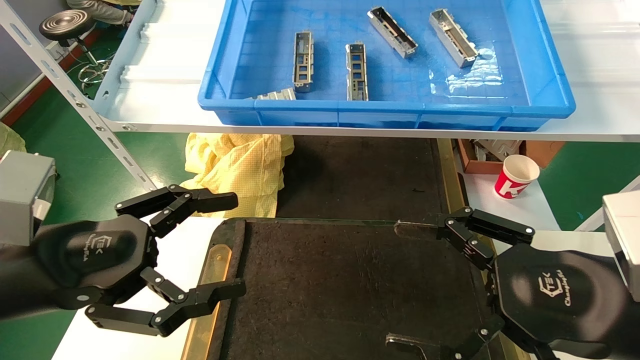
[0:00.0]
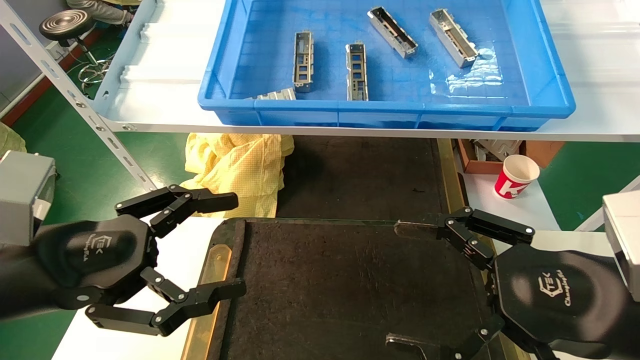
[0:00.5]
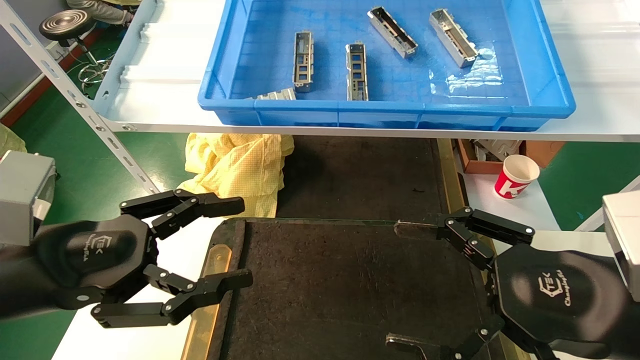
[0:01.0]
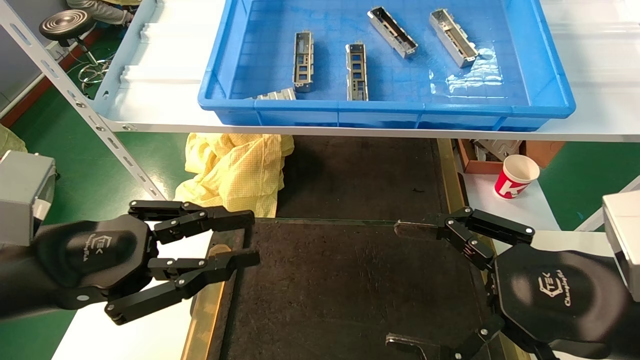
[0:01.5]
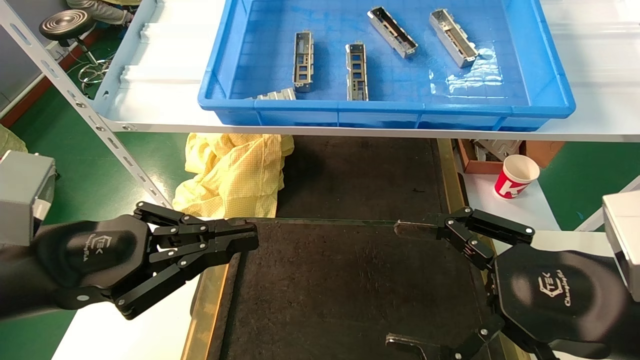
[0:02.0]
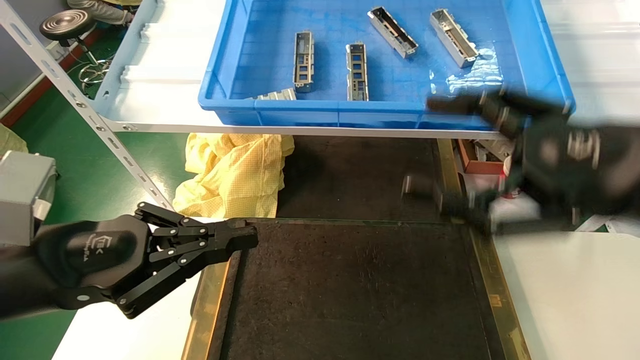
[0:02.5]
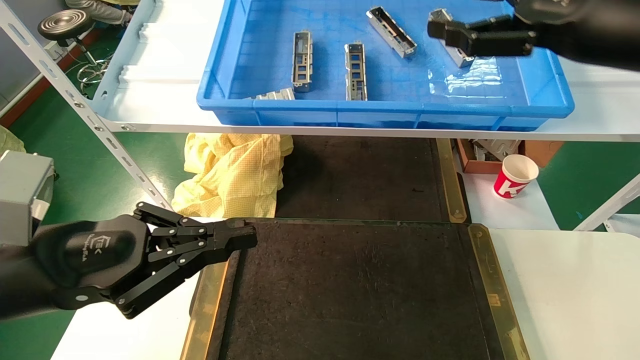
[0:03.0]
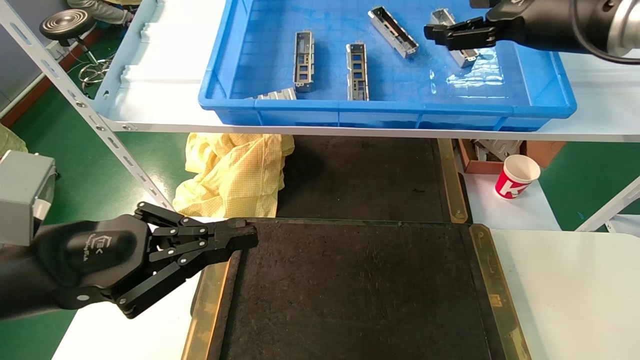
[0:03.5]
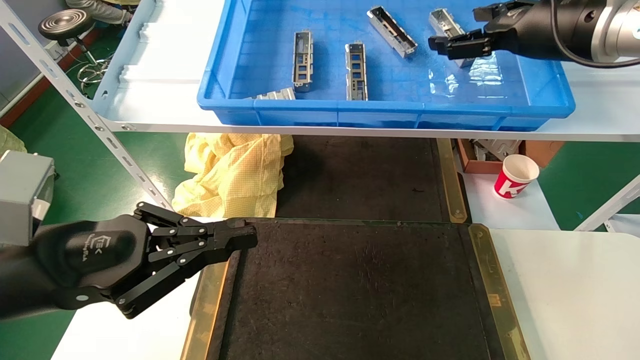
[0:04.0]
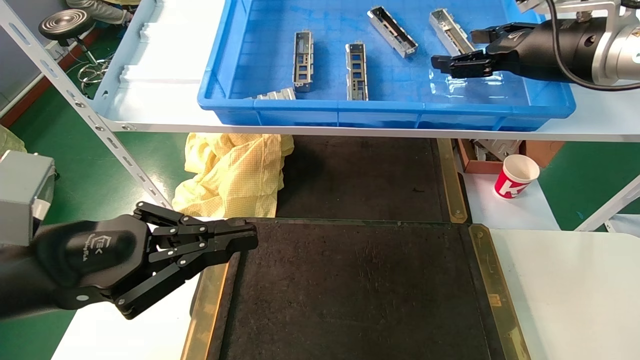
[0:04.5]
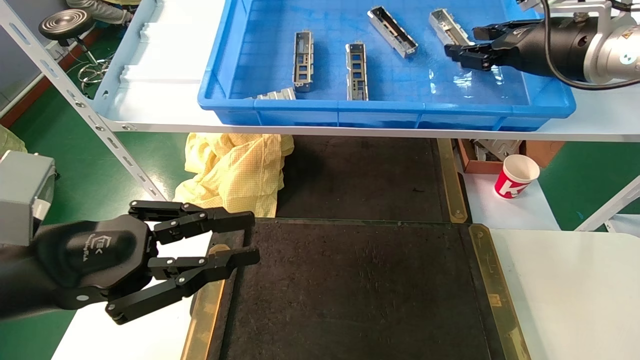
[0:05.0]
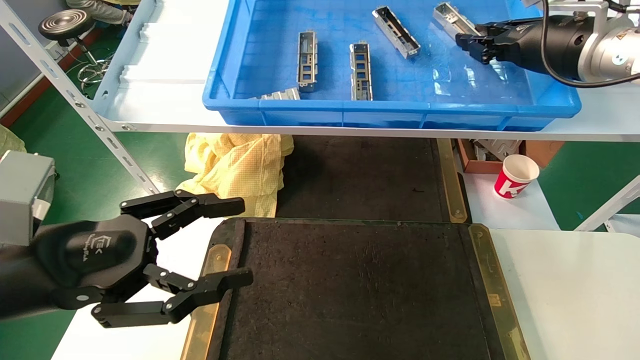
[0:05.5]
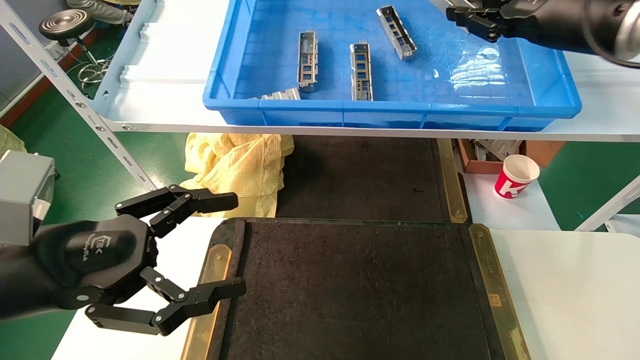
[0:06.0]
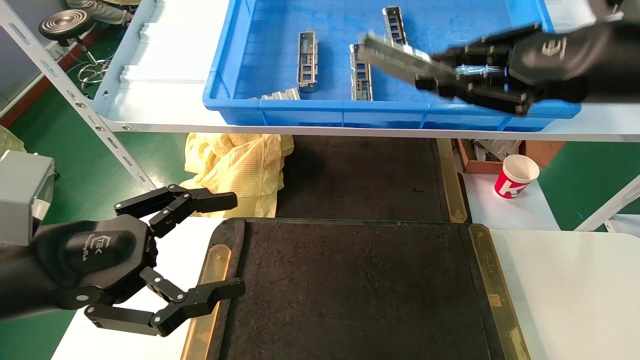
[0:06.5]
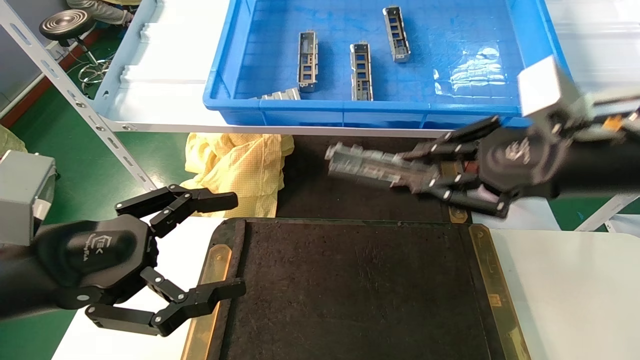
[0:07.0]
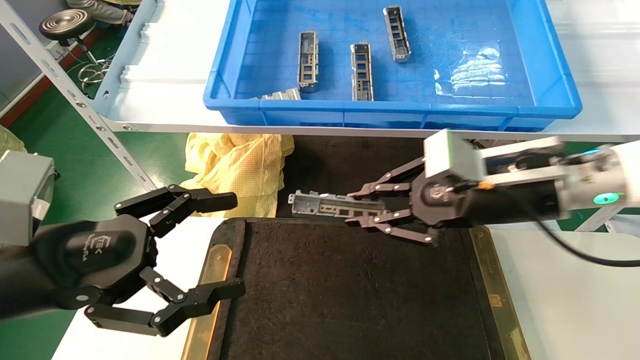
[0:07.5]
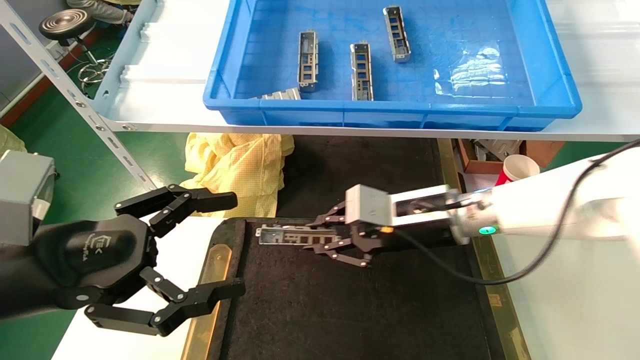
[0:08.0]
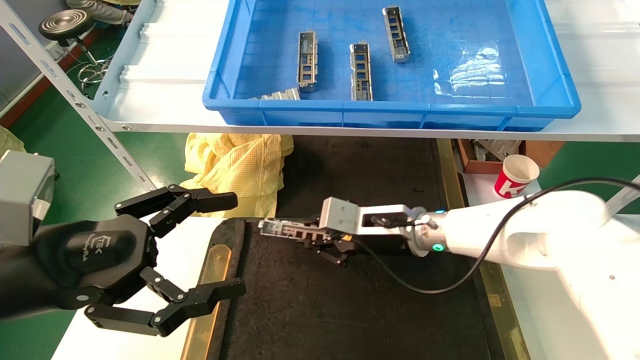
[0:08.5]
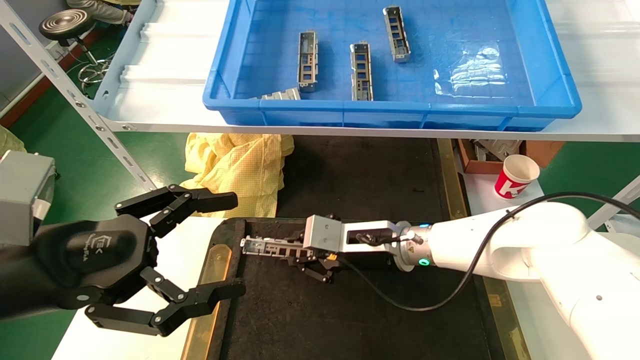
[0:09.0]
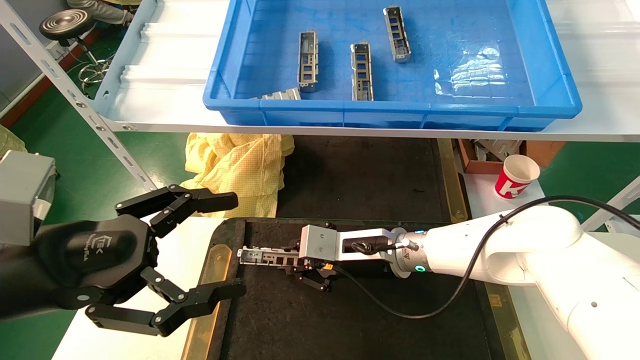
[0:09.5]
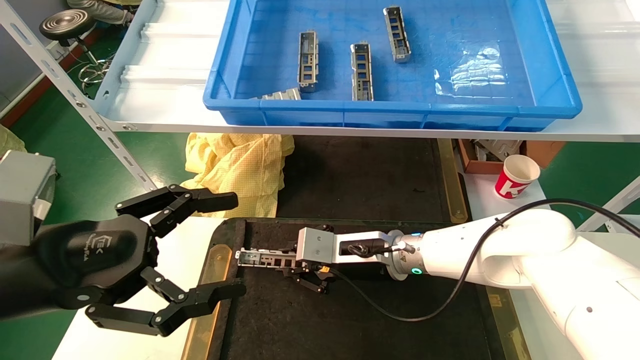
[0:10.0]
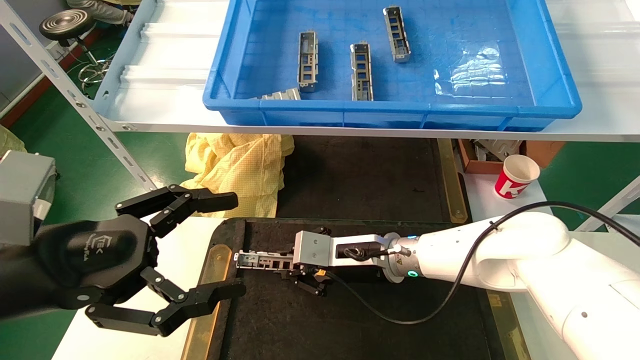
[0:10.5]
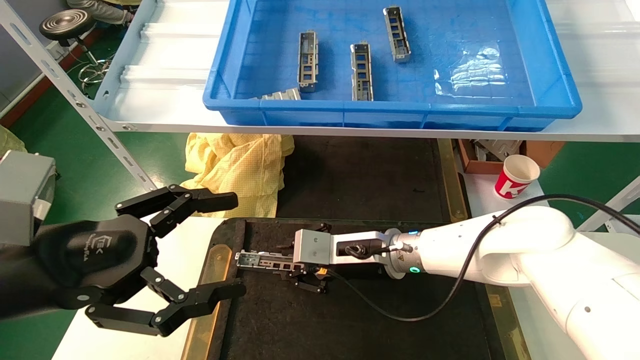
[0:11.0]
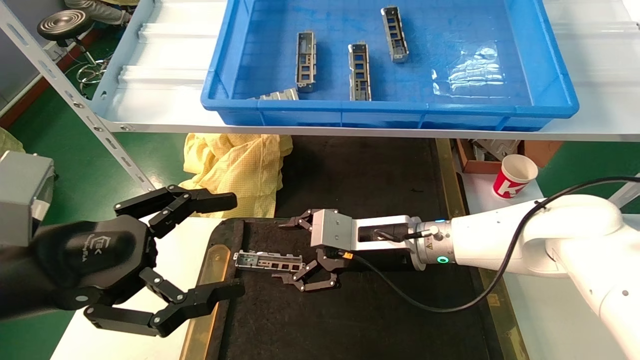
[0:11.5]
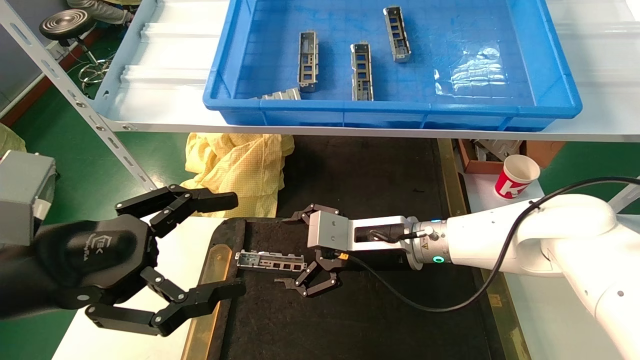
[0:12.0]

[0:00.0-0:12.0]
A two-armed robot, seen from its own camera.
Task of the whole recording: grasp the part and place them on the black container.
Step, 0:03.0 to 0:05.5: Pick up and lift the front USB bracket from the feeding area.
Step, 0:06.0 to 0:11.0: Place the front USB bracket into the box.
0:00.0 to 0:02.0: The left gripper closes up.
0:02.0 to 0:04.0: The right gripper is displaced forward and upward by some 30 cm.
0:04.0 to 0:06.0: The right gripper closes, while the left gripper opens.
0:06.0 to 0:08.0: The right gripper moves downward and to the left, about 30 cm.
0:08.0 to 0:10.0: The right gripper moves downward and to the left, approximately 10 cm.
0:10.0 to 0:12.0: The right gripper opens its fingers.

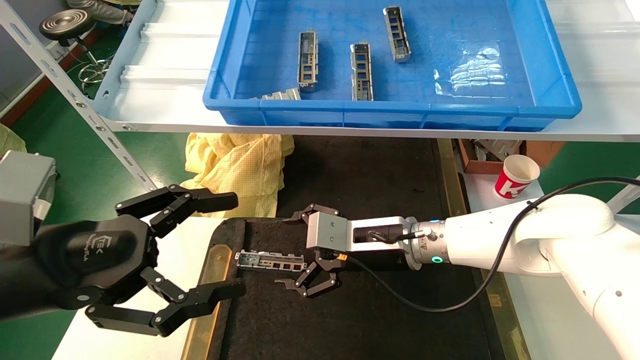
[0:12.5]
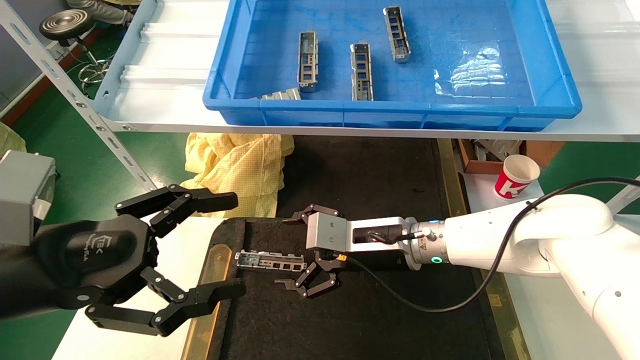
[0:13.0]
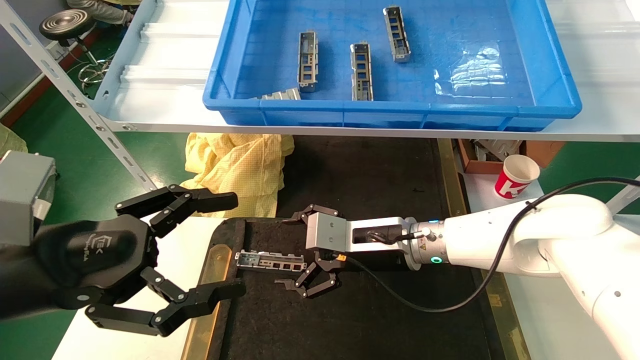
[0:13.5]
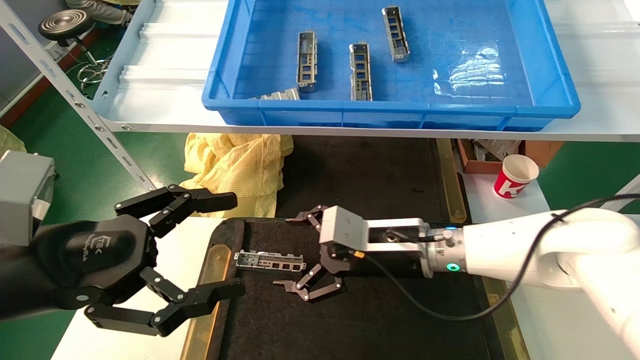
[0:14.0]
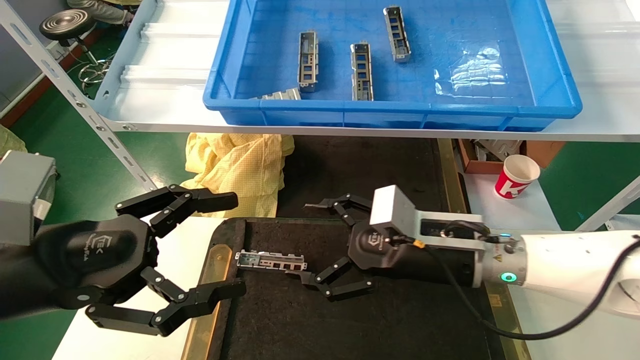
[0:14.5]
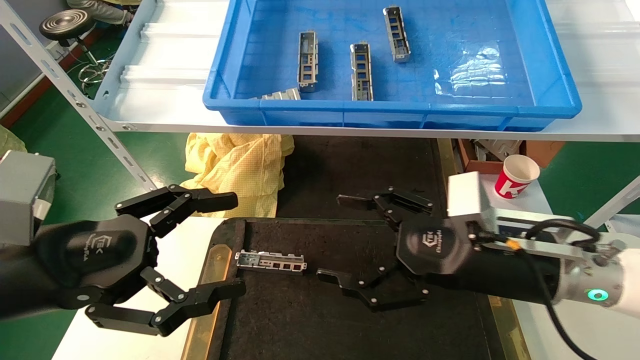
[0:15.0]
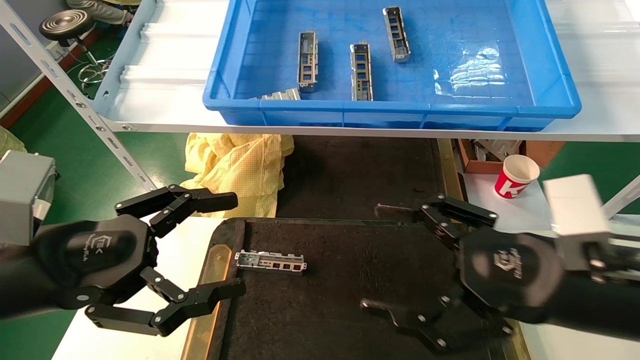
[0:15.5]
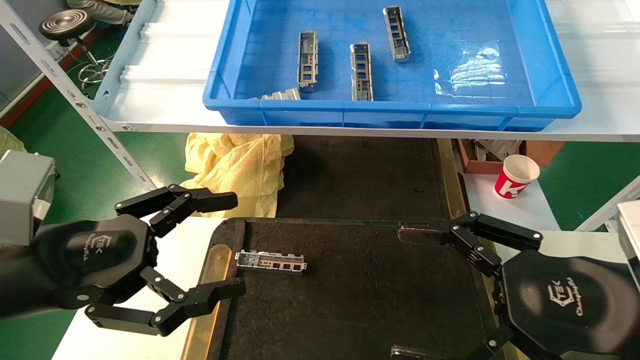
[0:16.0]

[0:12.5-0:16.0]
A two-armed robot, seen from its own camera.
Task of the whole recording: grasp the part and place them on the black container.
0:12.5 to 0:14.5: The right gripper heads to the right and backward, covering about 10 cm.
0:14.5 to 0:16.0: The right gripper is displaced backward and to the right by about 20 cm.
